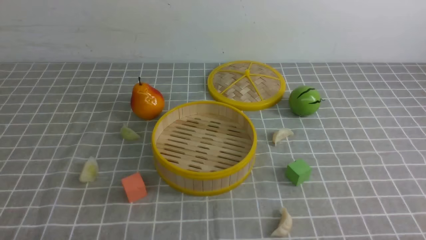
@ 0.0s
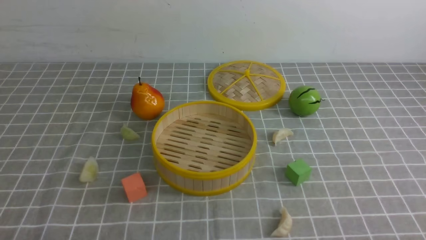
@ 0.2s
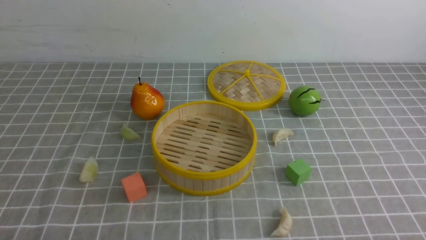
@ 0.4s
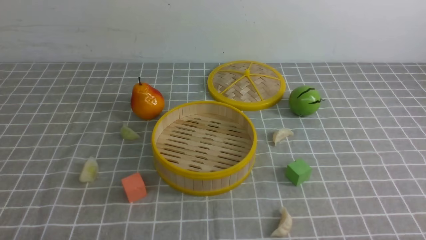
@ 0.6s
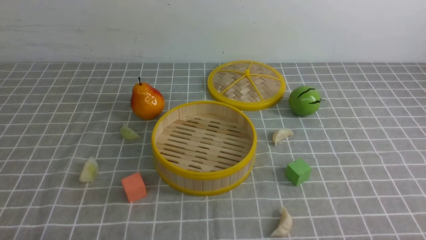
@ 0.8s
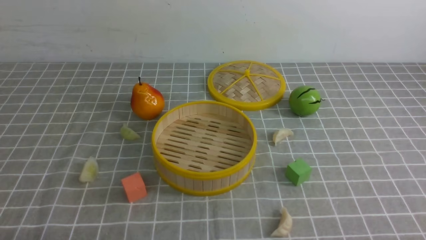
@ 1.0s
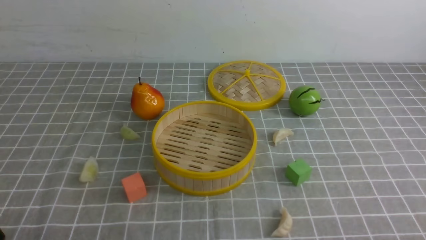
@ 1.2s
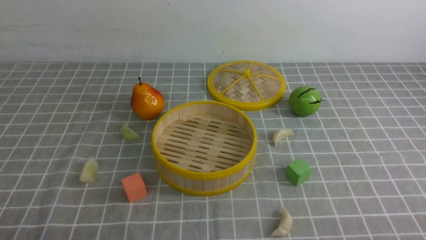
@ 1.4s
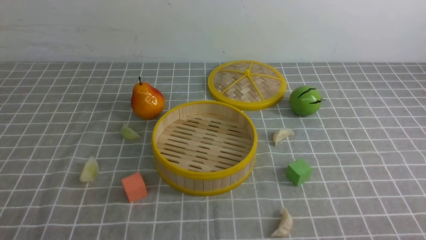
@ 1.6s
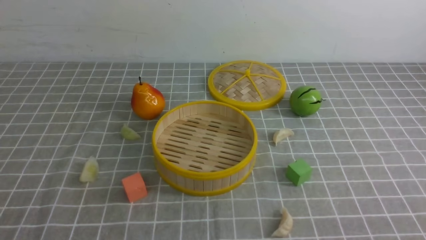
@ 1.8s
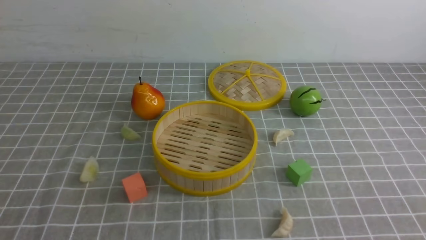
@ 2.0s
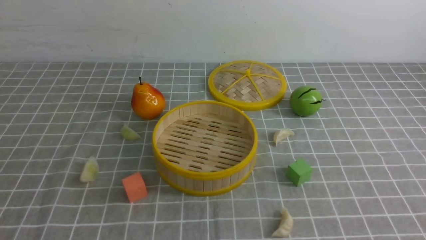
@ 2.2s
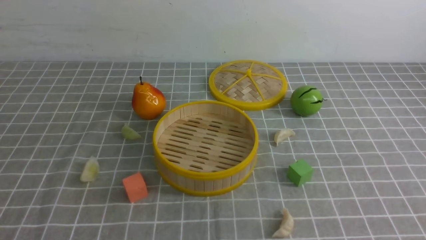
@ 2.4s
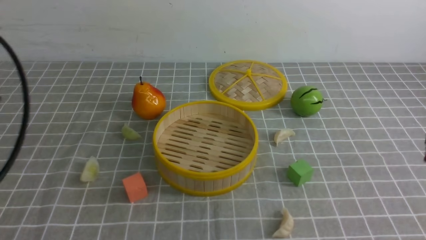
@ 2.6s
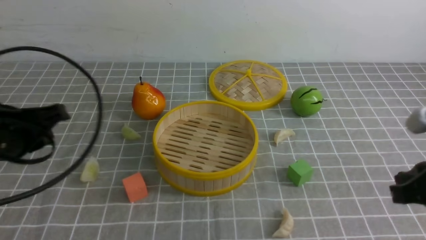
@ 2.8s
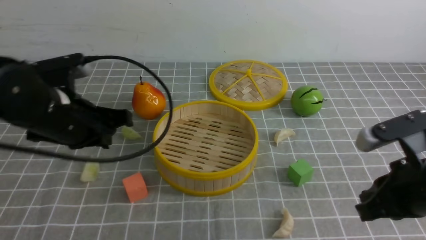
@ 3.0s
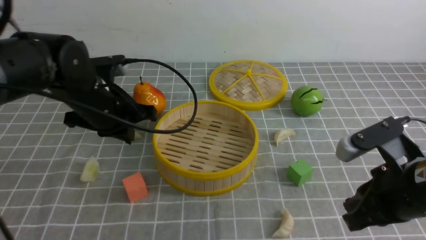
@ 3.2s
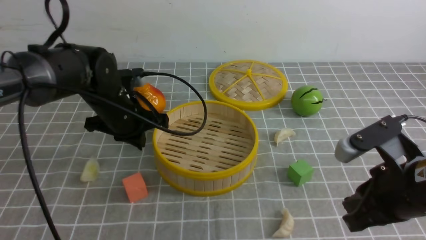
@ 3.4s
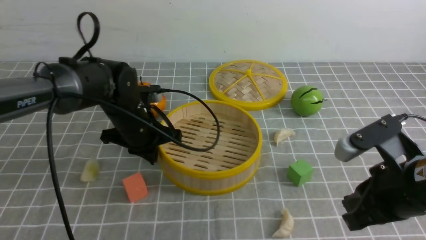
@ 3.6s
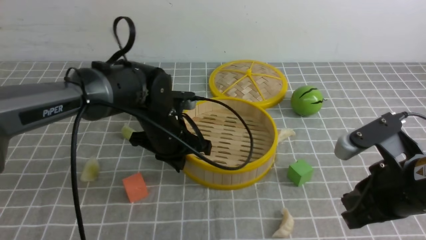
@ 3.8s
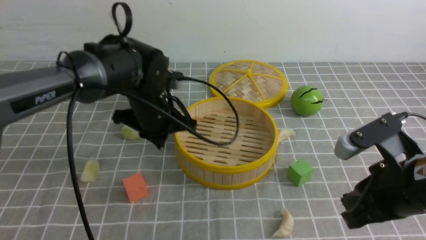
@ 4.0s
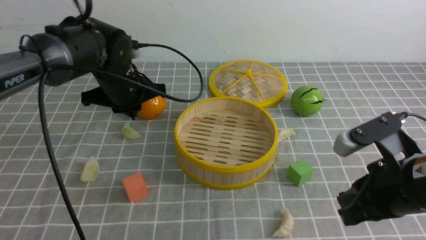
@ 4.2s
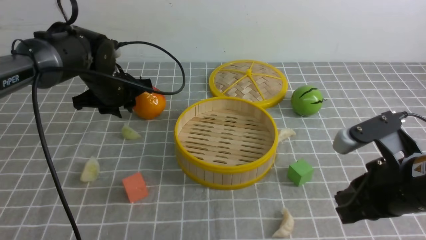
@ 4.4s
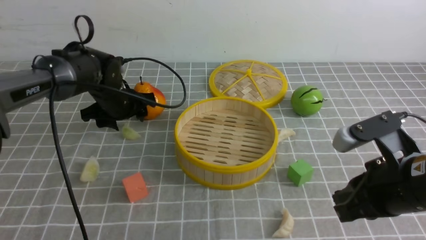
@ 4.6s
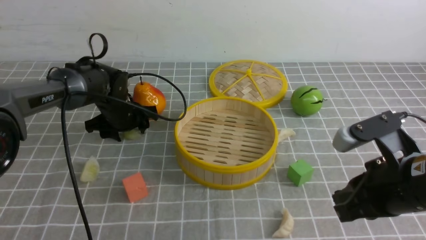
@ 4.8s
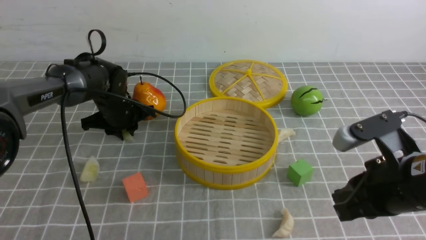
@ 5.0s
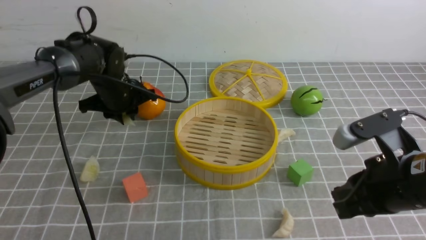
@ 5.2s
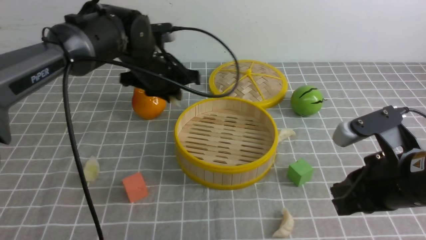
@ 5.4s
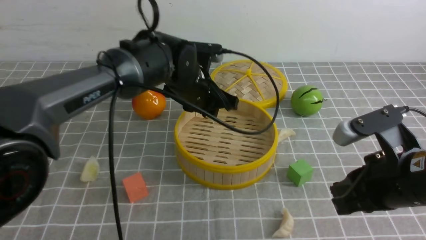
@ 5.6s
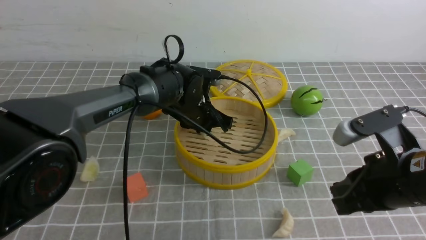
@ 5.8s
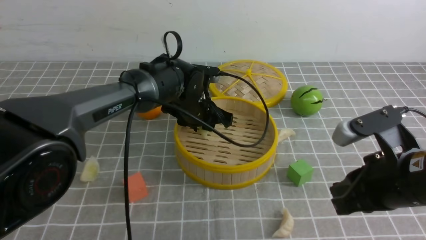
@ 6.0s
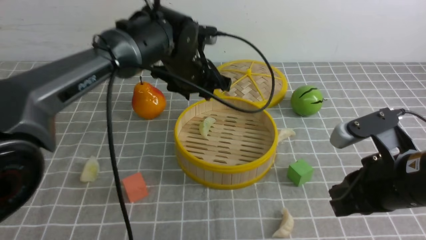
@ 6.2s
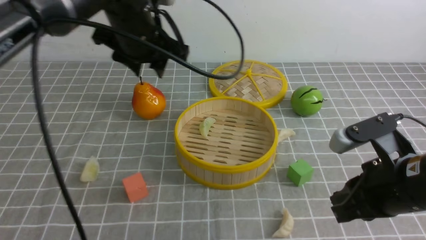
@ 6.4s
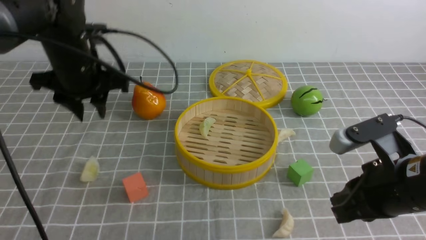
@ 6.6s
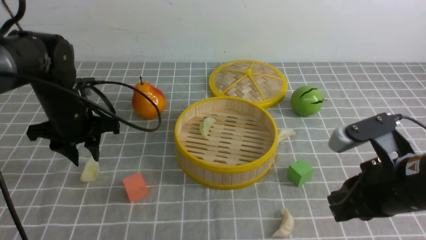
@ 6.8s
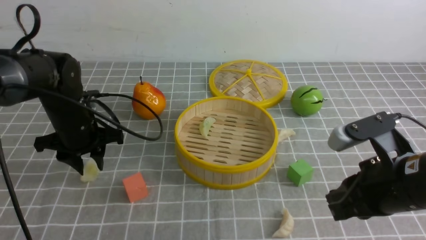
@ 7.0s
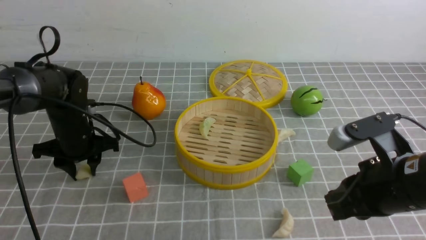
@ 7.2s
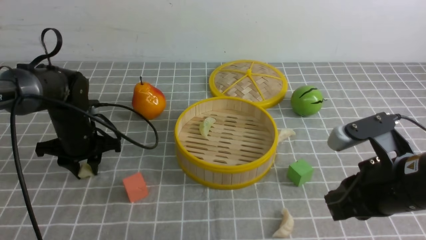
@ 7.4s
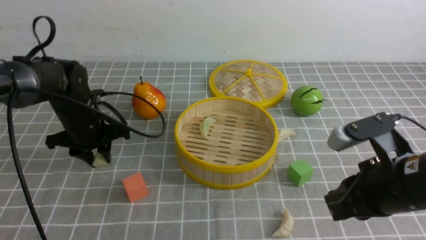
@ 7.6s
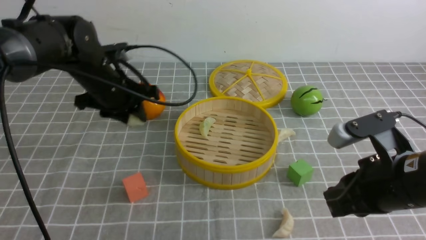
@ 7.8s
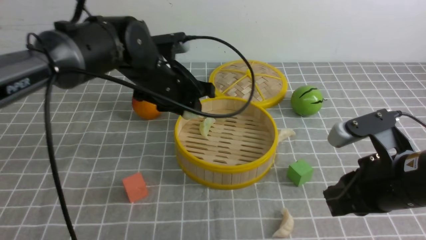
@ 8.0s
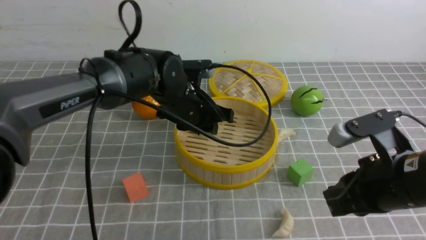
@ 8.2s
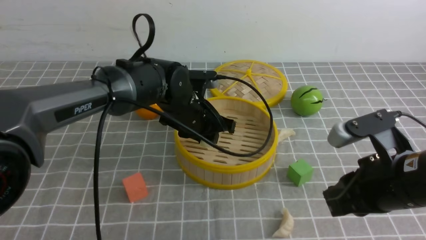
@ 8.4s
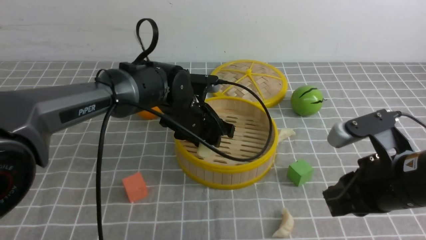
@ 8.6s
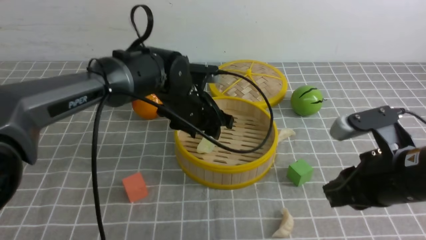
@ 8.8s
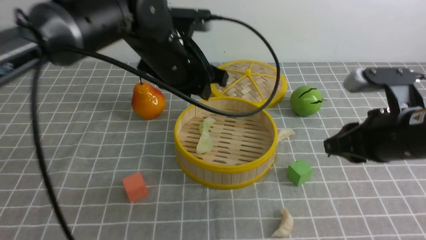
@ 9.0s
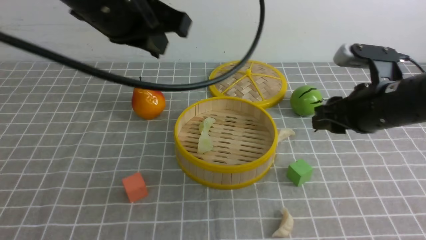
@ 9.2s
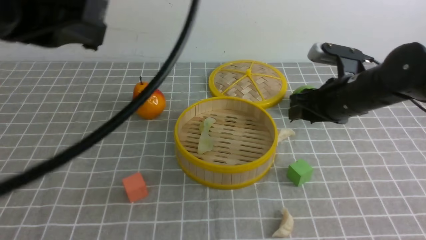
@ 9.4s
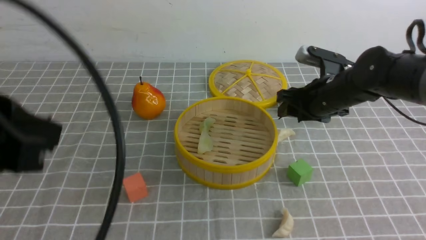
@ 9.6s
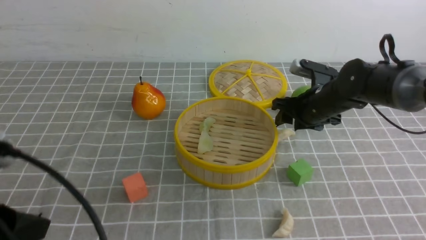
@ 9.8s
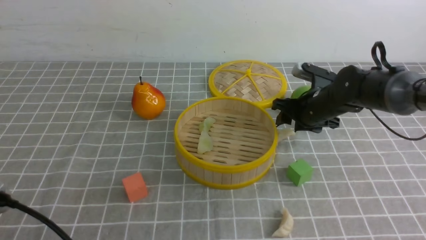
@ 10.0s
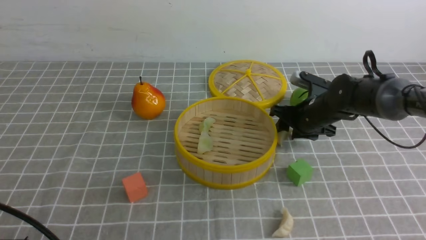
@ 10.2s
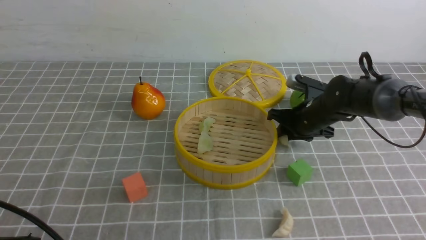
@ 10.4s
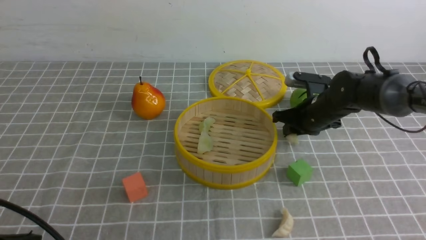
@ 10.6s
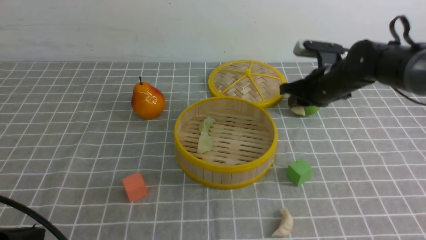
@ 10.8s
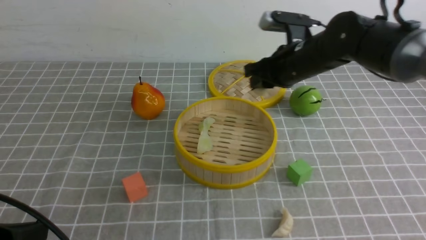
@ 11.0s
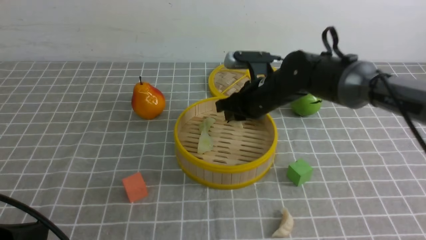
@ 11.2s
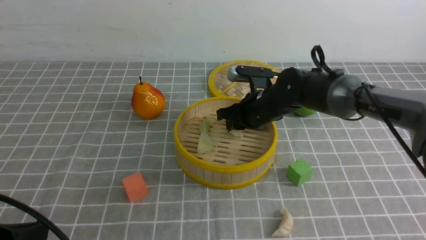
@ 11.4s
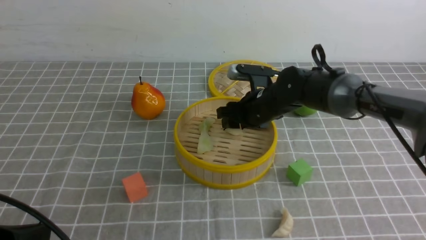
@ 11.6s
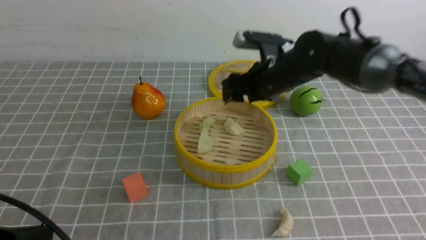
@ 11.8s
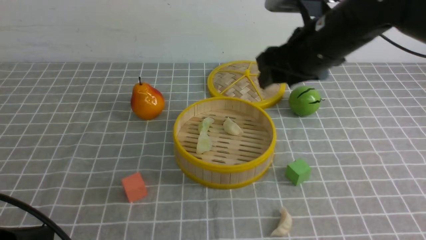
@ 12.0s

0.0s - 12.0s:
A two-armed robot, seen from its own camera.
Task of the whole recording: put the dumplings into the steamer on the table with the grey tablecloth.
Step, 0.0s - 5.0s: use the left arm to grab a dumpling.
Step, 5.2s - 6.0s: use the left arm to put the dumpling into the steamer.
Step, 6.2s - 7.8s: use the left arm to grab a dumpling.
Step, 8.0s - 9.0s: use the left arm to put the dumpling into the steamer.
Step, 9.2s - 10.6s: use the right arm to grab a dumpling.
Step, 10.8s - 11.8s: use the right arm to put the dumpling into the steamer.
1.6s - 3.0s: The right gripper goes some 15 cm forward and to the left, and closes its fingers, while the left gripper travels forward by approximately 25 cm, and closes.
3.0s - 4.4s: The left gripper heads forward, covering approximately 15 cm.
4.4s - 6.0s: The left gripper travels to the right by roughly 15 cm.
6.0s - 7.6s: The left gripper travels to the left by about 20 cm.
7.6s - 9.0s: The left gripper travels to the right and upward by about 20 cm.
9.0s - 10.4s: The left gripper travels backward and to the left by roughly 35 cm, and closes its fingers. Meanwhile the right gripper travels forward and downward by about 25 cm.
10.4s - 12.0s: The right gripper goes up and down, some 15 cm each way, reversing 2 times, and opens its fingers.

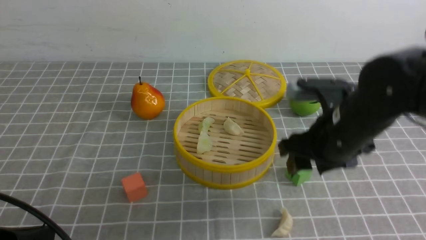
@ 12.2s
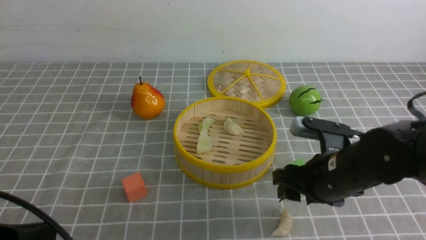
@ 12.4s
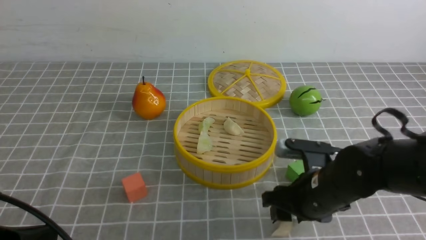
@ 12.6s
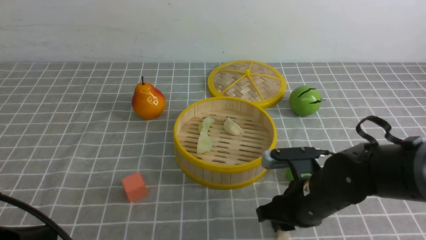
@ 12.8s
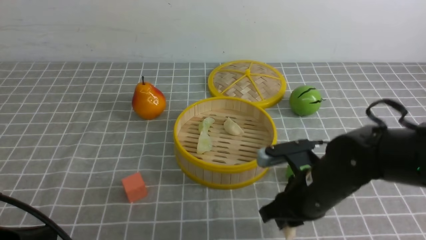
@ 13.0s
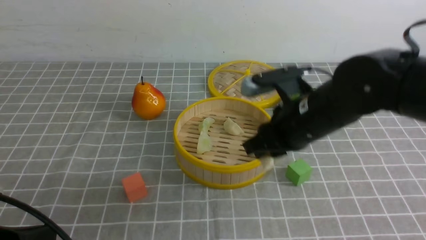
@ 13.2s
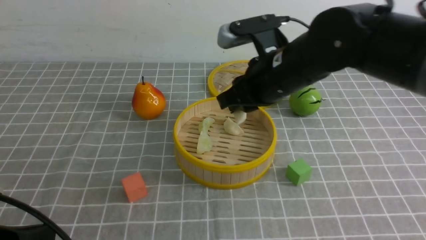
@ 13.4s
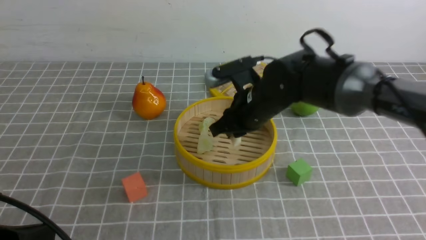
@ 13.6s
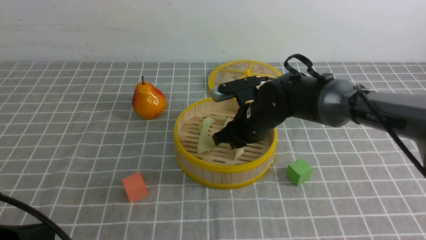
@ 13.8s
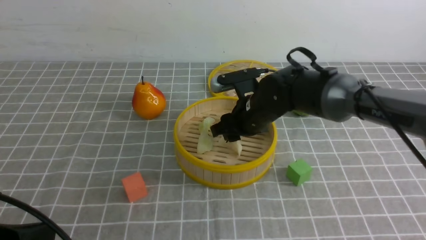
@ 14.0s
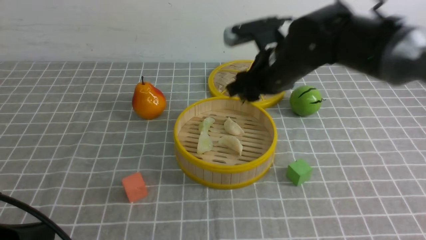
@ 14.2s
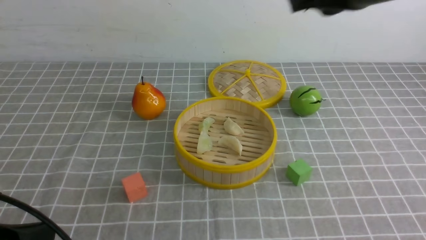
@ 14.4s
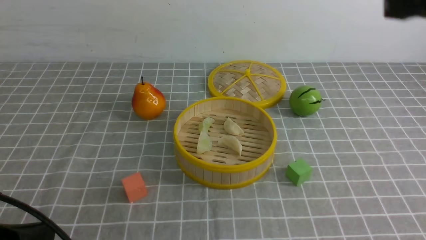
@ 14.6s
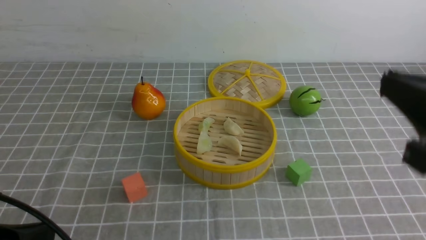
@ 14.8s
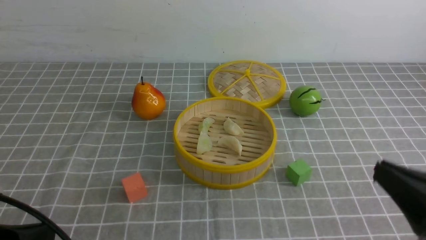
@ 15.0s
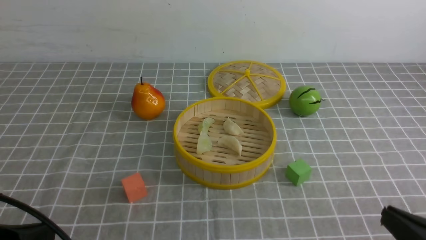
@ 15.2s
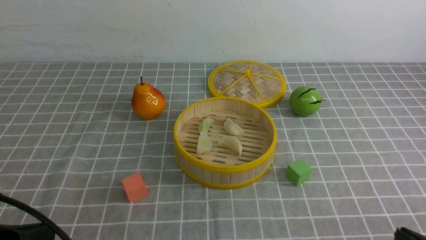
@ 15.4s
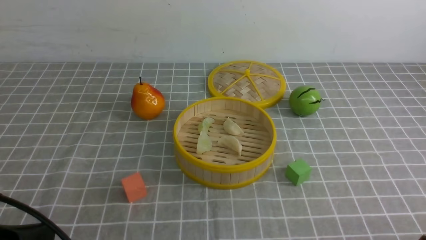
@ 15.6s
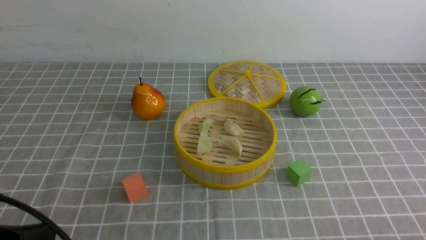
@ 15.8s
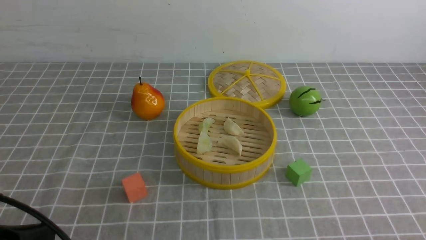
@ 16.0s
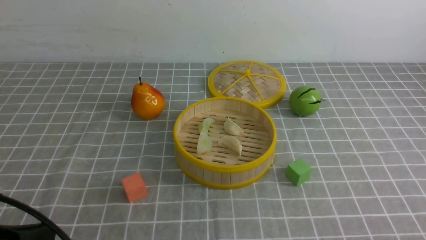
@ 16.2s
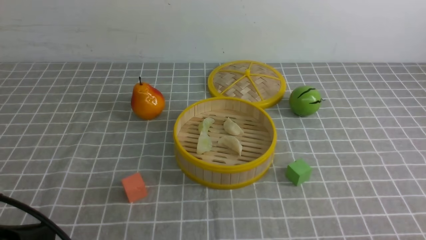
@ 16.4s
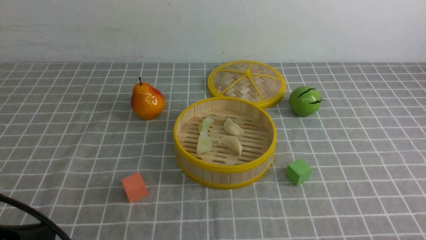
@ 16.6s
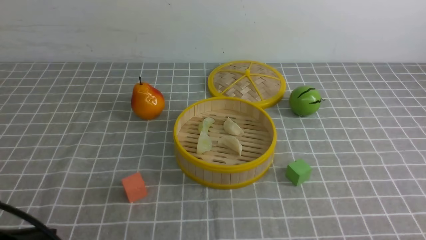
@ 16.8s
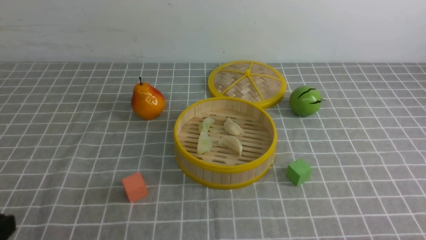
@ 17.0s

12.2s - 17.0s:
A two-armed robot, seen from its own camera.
Task of the whole recording: put the dumplings into the steamer on the table with the grey tablecloth.
Step, 12.2s - 12.8s: use the right arm to grab a dumpling.
Step, 13.2s - 14.2s: use the right arm to put the dumpling into the steamer.
12.2s - 13.8s: The right gripper is displaced to the left, downward and forward by about 10 cm, and closes up.
13.8s - 15.4s: The right gripper travels backward and to the right by approximately 40 cm, and closes up.
